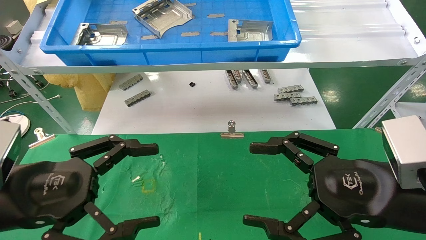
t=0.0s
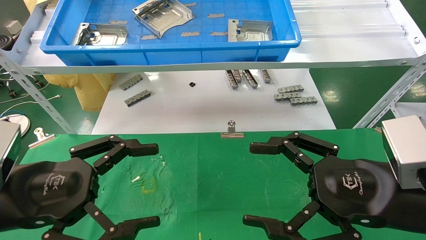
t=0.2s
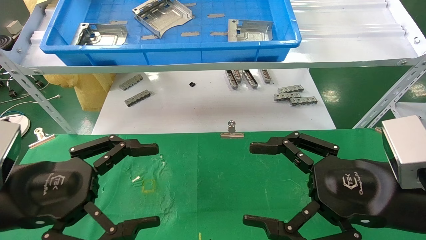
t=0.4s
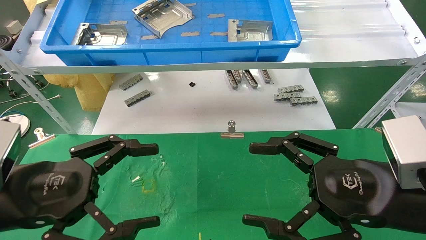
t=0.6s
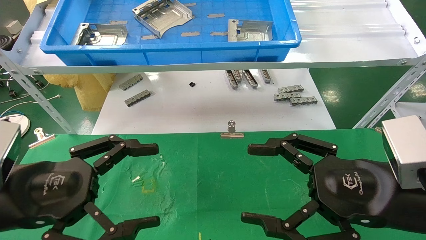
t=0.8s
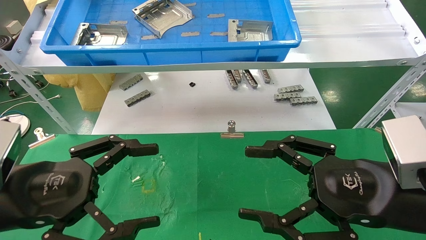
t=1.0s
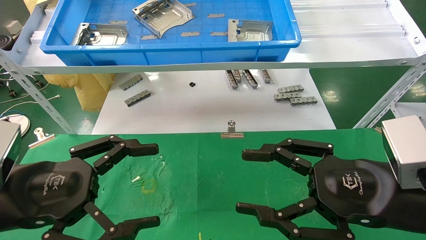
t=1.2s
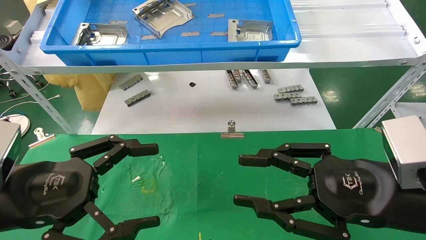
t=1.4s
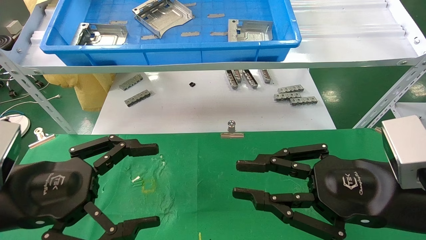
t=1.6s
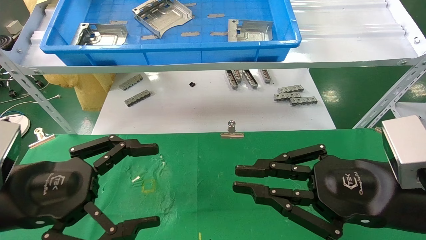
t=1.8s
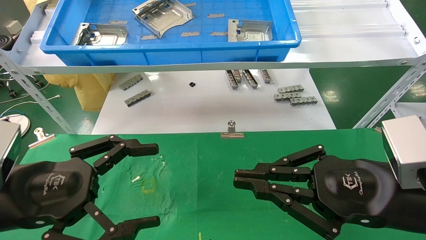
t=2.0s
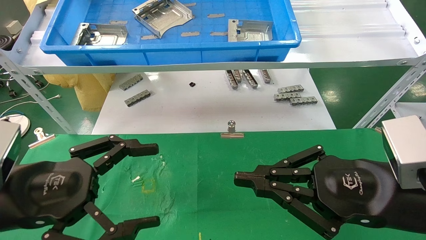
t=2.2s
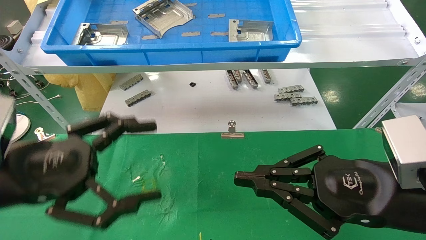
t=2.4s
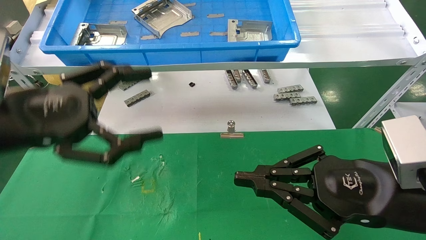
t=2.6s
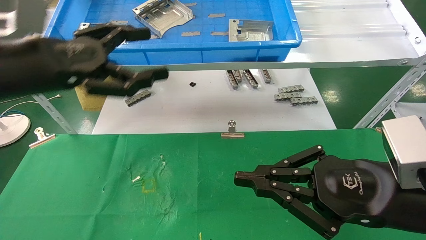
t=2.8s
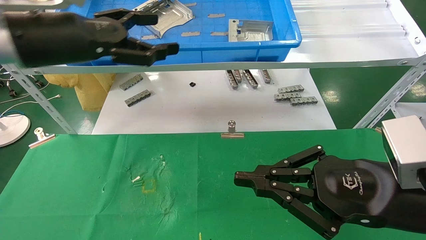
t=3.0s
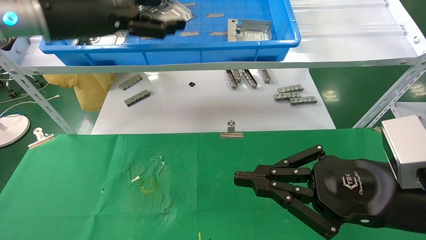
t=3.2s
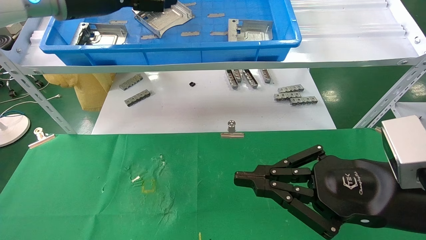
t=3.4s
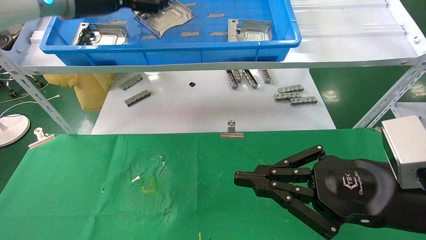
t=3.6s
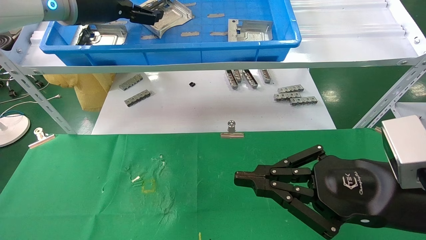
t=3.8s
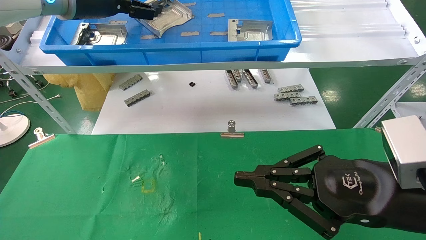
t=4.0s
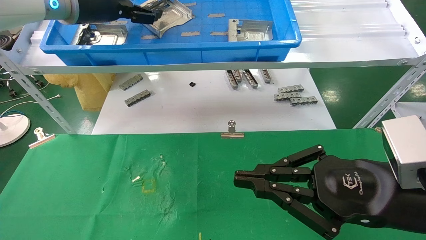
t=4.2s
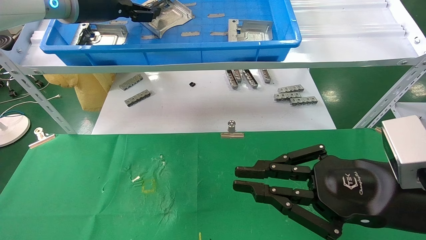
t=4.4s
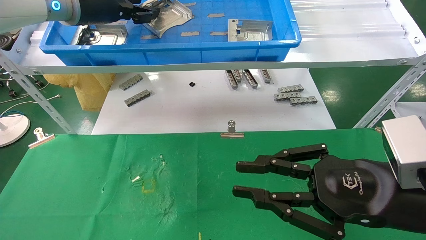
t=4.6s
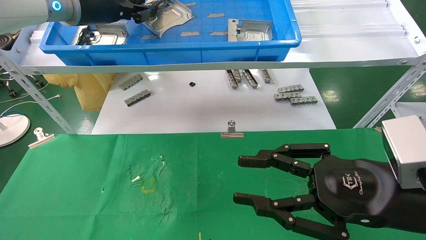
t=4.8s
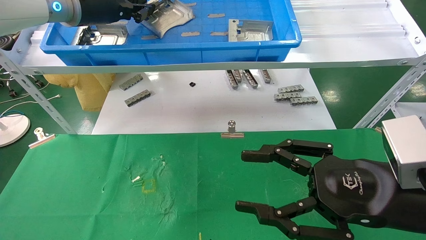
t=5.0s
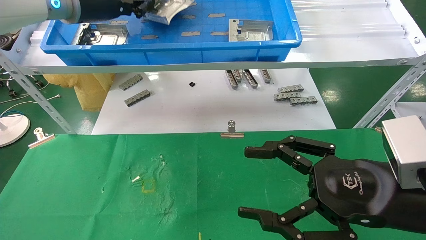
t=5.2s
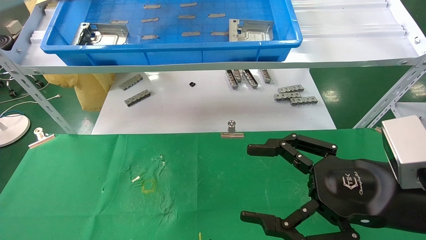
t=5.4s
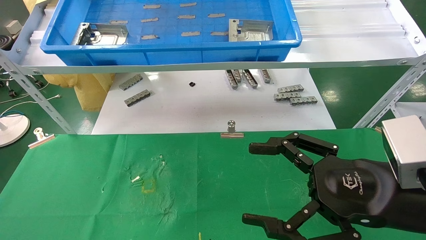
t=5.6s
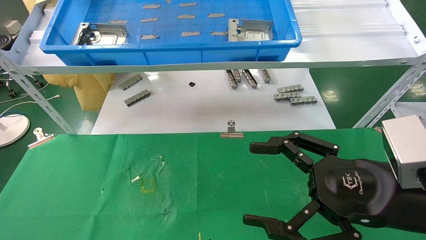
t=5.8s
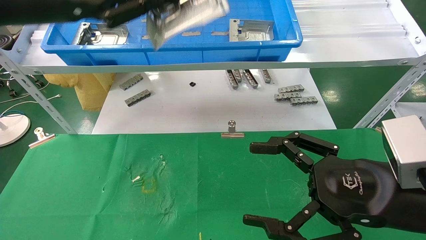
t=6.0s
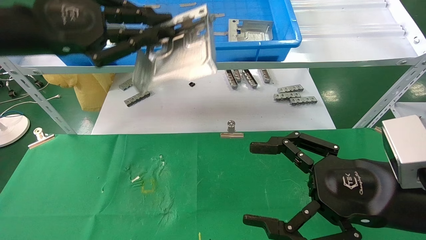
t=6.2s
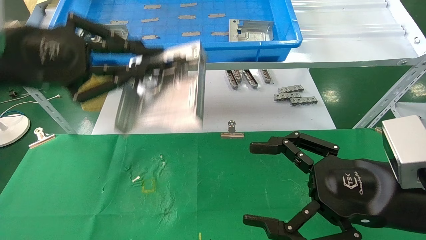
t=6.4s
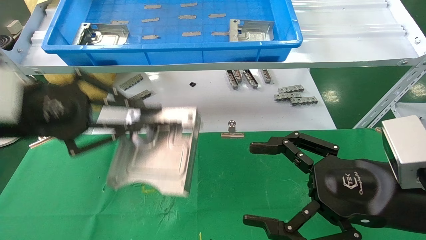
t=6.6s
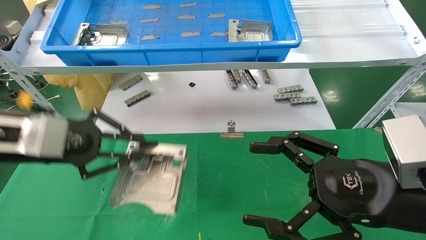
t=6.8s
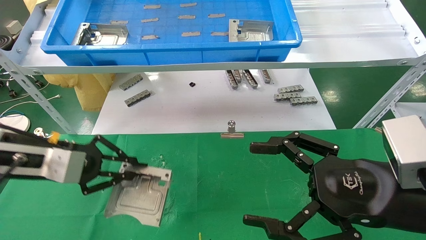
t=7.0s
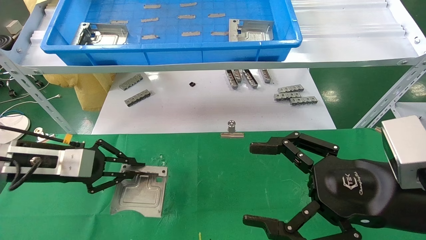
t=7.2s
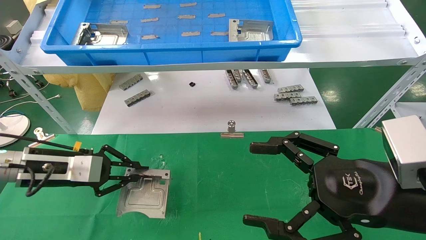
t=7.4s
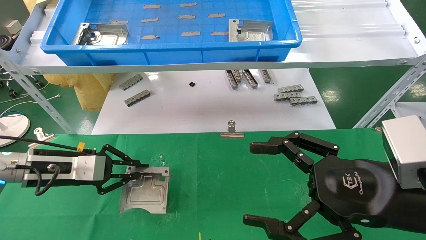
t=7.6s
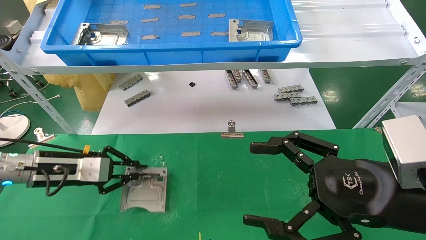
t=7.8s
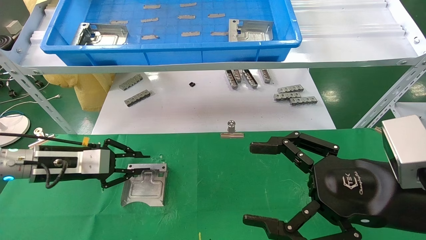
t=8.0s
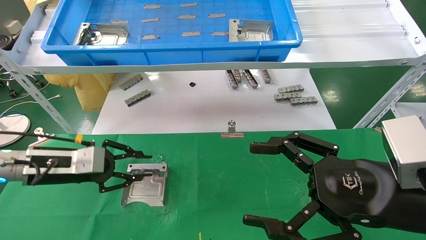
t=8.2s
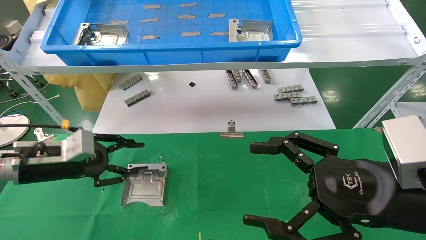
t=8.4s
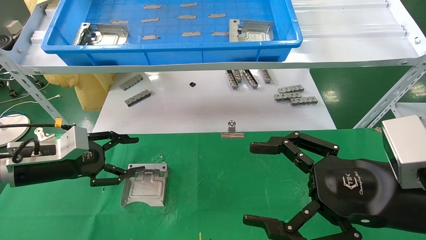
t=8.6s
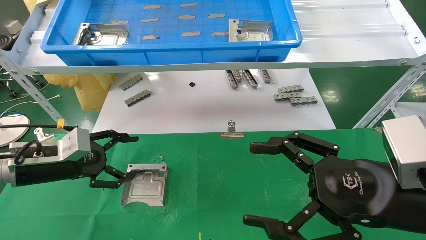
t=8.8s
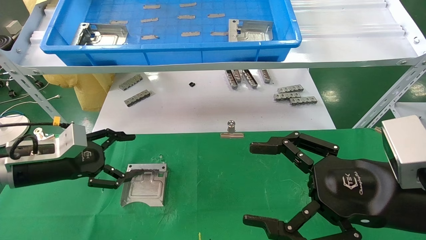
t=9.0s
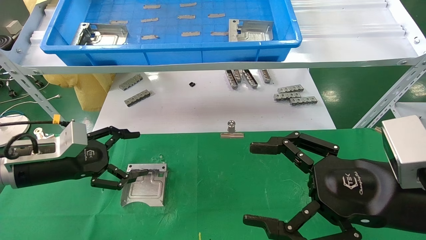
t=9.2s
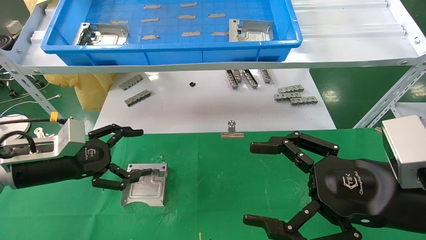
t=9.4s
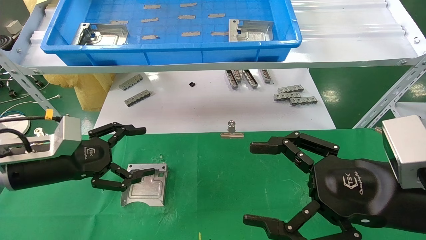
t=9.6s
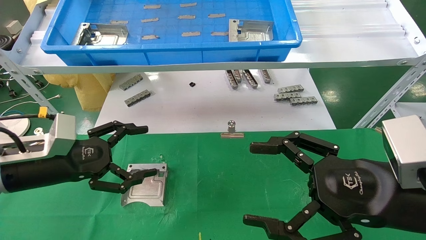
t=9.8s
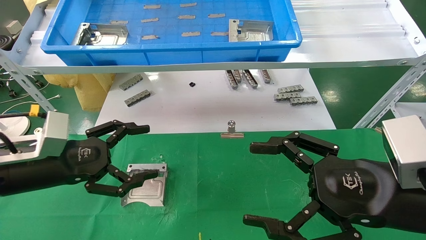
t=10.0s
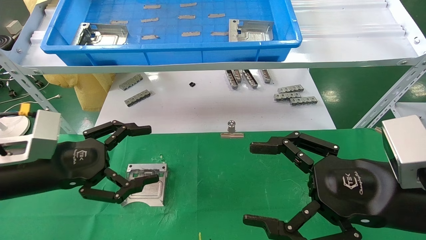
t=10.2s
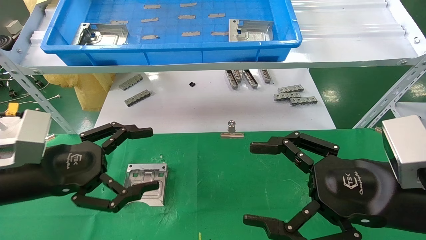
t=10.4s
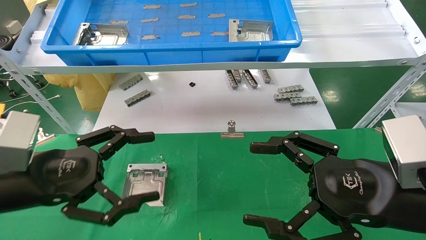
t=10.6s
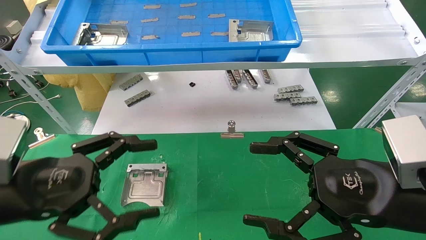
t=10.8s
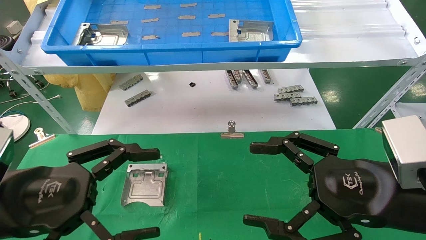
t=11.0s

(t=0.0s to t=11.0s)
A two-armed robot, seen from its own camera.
Task of the whole recording: use the mechanical arm to pick up the parts and place them on the table.
Step, t=2.4s - t=4.8s: Pick up the hard drive bracket from the feeding area.
Step, t=5.0s - t=8.4s: Place the hard drive bracket into the box.
t=0.0s - t=1.6s: The right gripper closes its fingers.
t=1.6s - t=3.2s: The right gripper closes. The left gripper moves upward and forward, approximately 25 cm.
t=3.2s - t=4.8s: The left gripper goes some 5 cm forward, and closes its fingers.
t=4.8s - t=6.2s: The right gripper opens; the left gripper travels backward by about 15 cm, and closes up.
t=6.2s - t=7.8s: The left gripper travels downward by approximately 25 cm.
t=7.8s - t=9.4s: The left gripper opens its fingers.
t=9.4s - t=11.0s: The left gripper moves backward, about 15 cm.

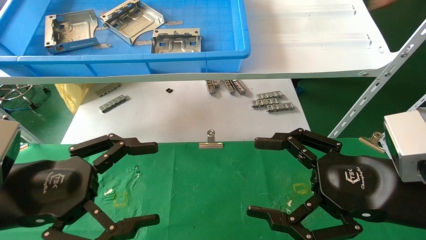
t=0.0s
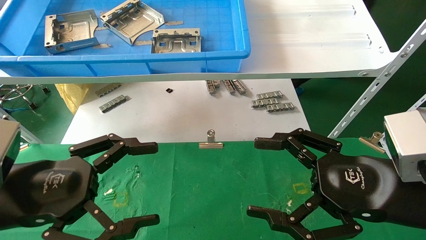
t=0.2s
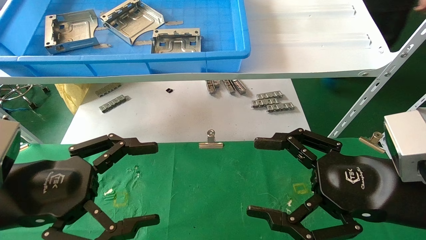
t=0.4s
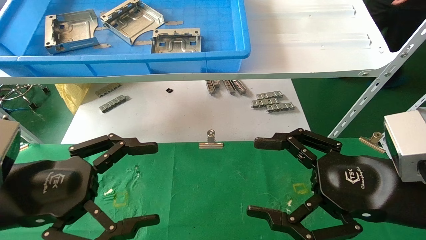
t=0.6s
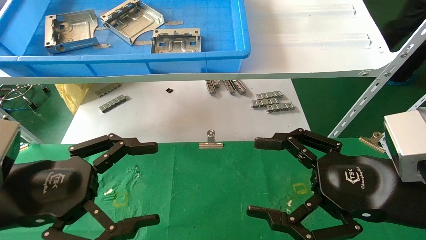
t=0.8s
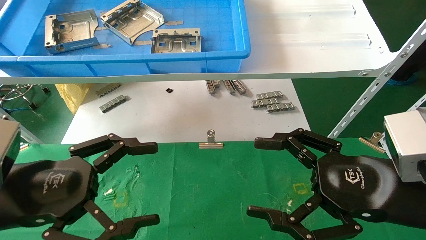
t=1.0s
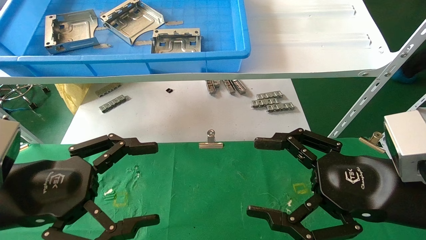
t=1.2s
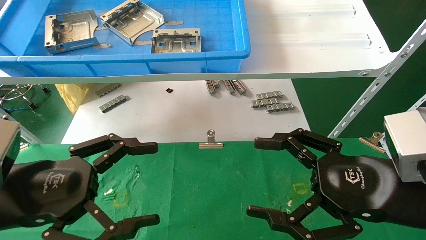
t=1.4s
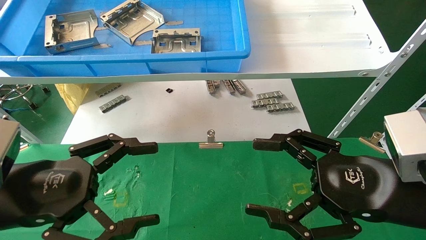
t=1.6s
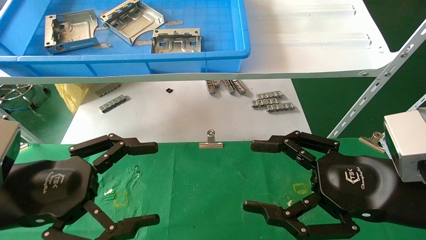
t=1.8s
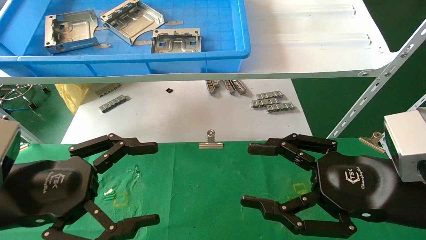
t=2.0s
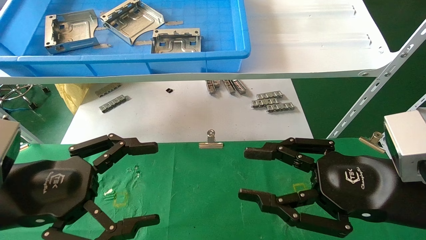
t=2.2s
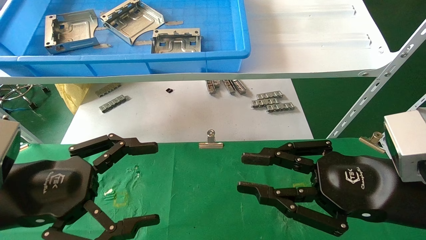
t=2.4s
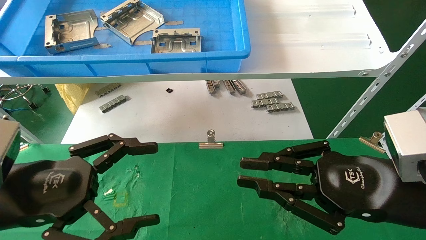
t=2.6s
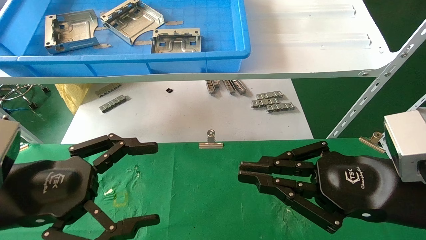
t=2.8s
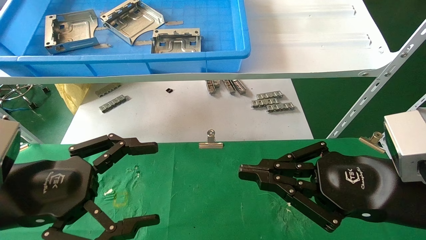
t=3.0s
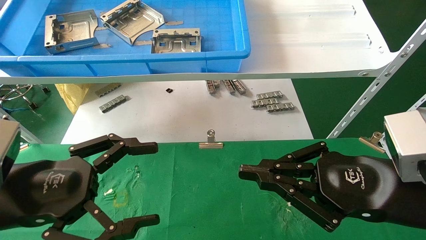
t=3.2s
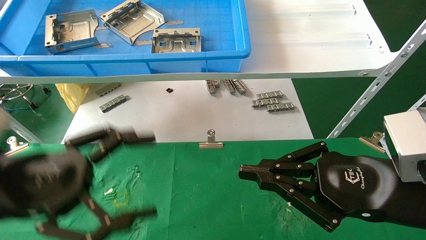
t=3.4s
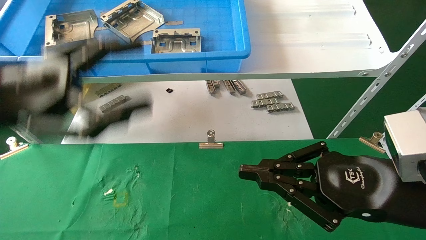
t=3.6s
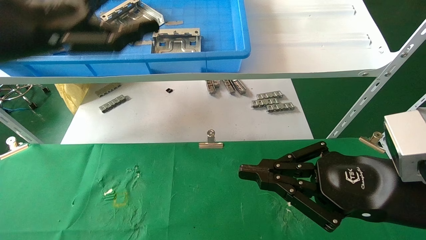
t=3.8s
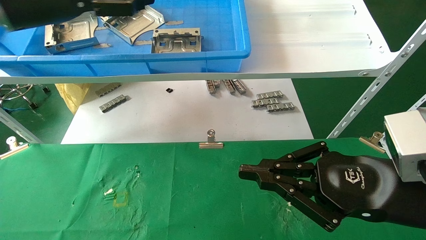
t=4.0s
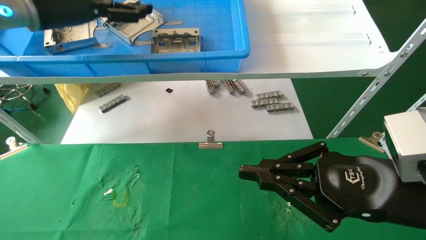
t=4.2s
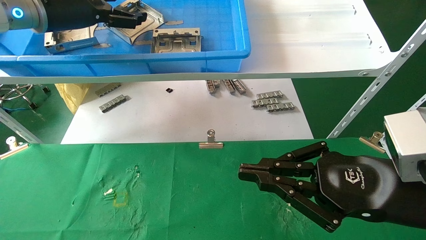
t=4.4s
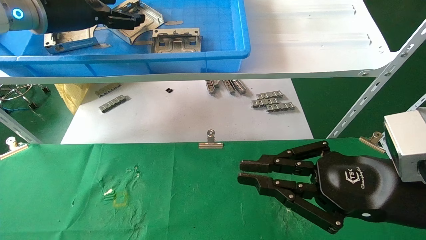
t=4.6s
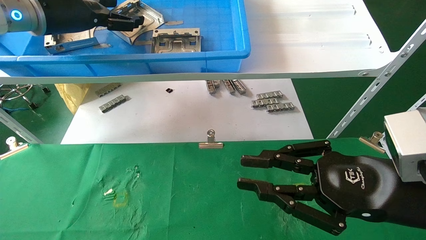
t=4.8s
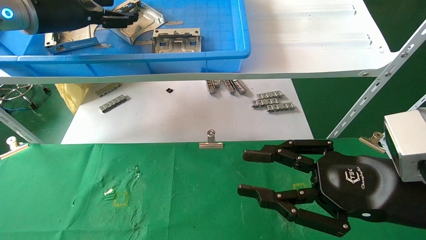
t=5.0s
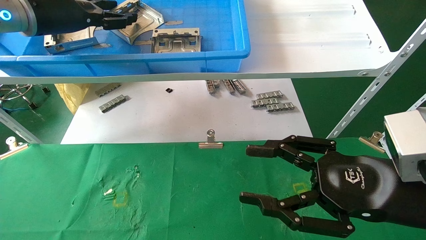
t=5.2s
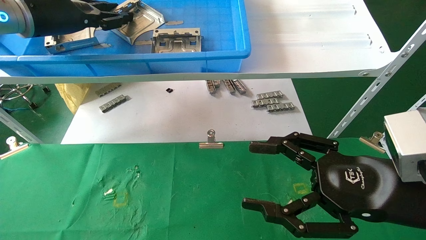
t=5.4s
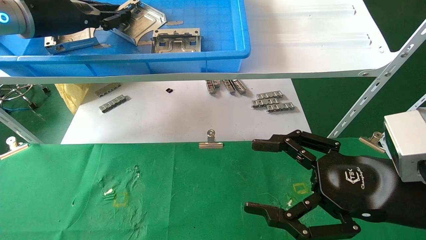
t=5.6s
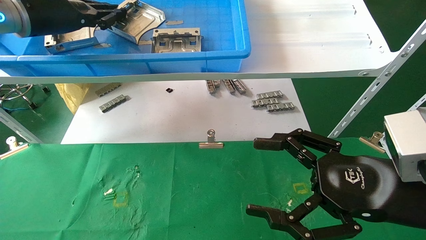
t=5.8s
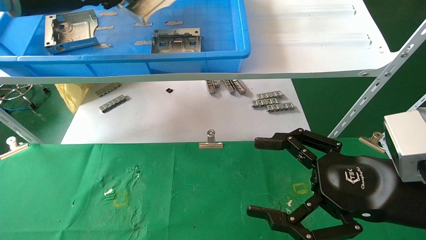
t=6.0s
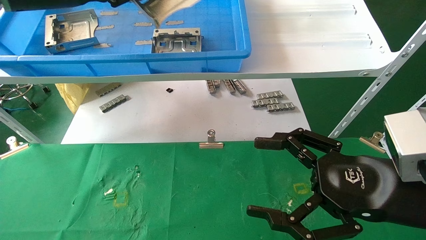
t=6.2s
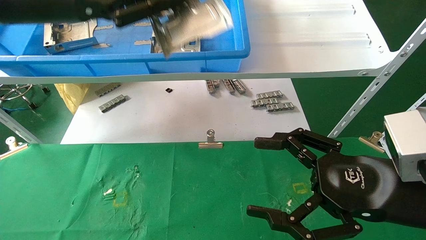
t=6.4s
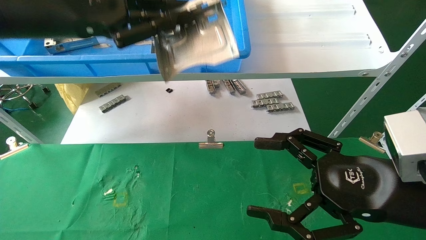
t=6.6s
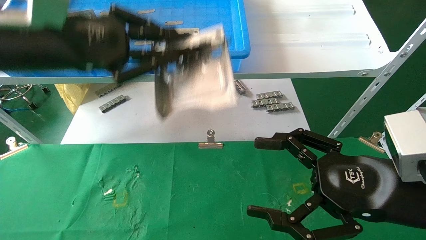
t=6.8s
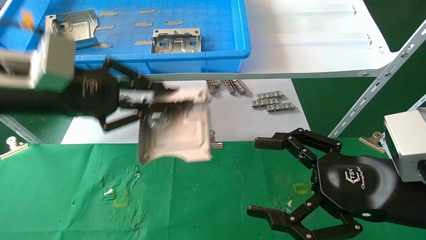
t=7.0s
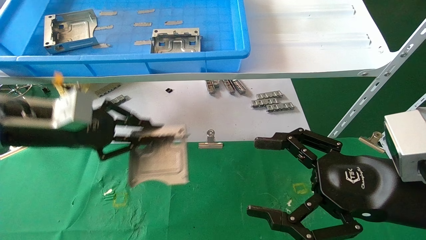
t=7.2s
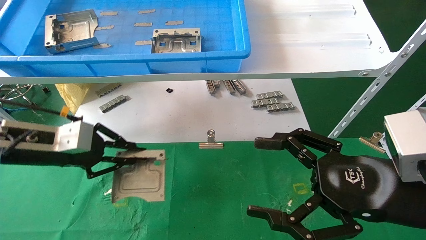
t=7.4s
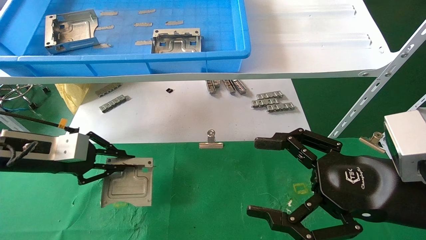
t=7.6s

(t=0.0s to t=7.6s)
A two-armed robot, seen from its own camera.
Task of the whole recording: use the mechanical arm to pick up the parts and place them on the table.
Step, t=2.2s - t=5.8s: Pick up the hard drive bracket from the feeding area.
t=0.0s - t=1.6s: The two grippers keep their place.
t=1.6s - t=3.0s: The right gripper closes up.
t=3.0s - t=4.6s: The left gripper is displaced forward and upward by approximately 30 cm.
t=4.6s - t=6.0s: The right gripper opens up, while the left gripper closes its fingers.
t=6.0s - t=7.6s: The left gripper is displaced downward by about 25 cm.
